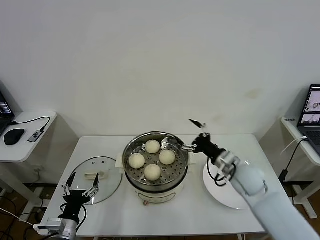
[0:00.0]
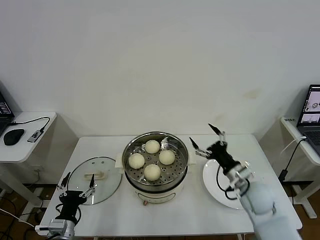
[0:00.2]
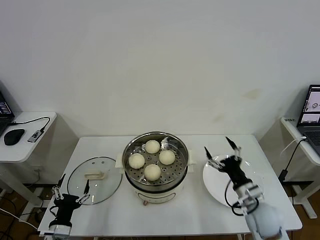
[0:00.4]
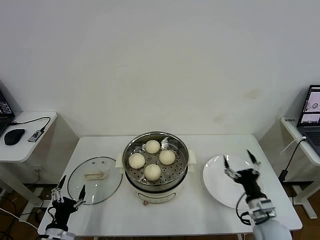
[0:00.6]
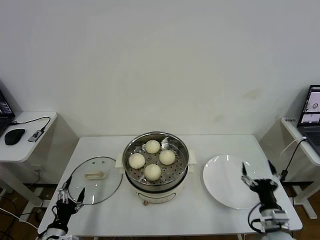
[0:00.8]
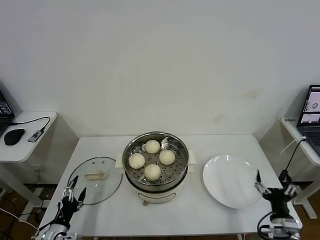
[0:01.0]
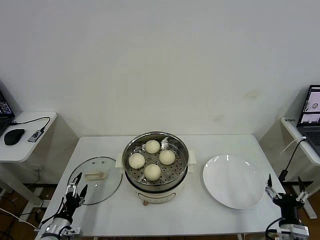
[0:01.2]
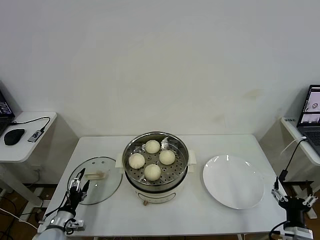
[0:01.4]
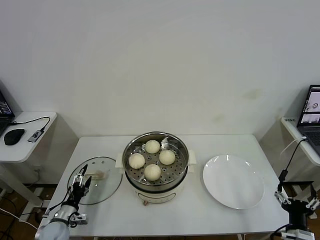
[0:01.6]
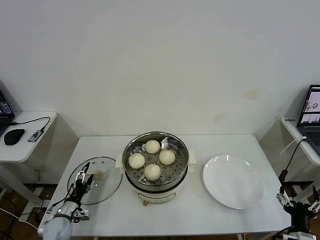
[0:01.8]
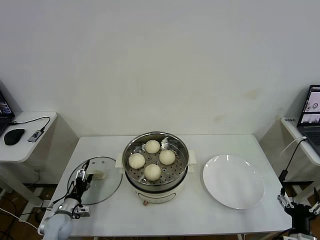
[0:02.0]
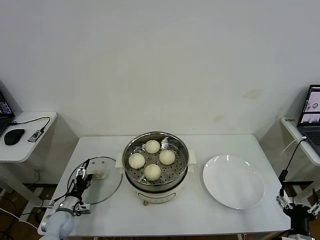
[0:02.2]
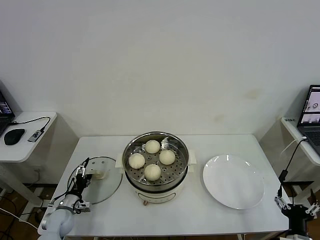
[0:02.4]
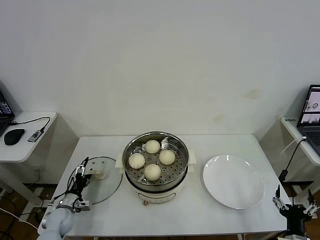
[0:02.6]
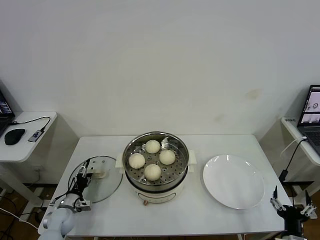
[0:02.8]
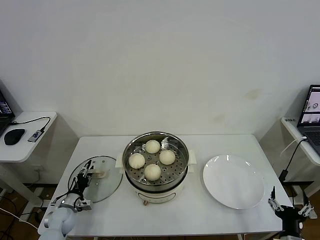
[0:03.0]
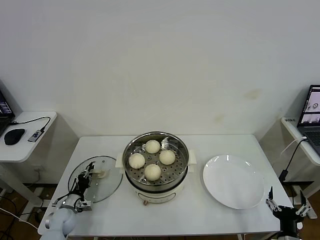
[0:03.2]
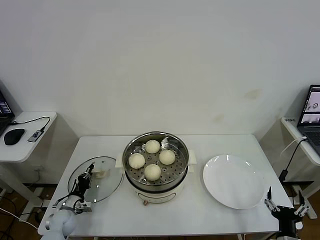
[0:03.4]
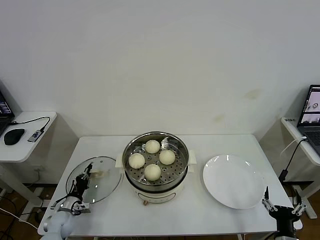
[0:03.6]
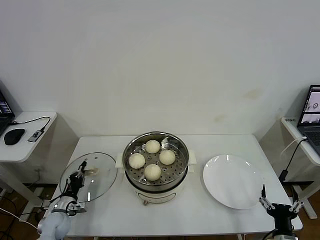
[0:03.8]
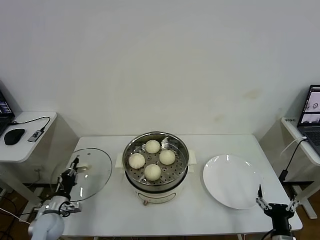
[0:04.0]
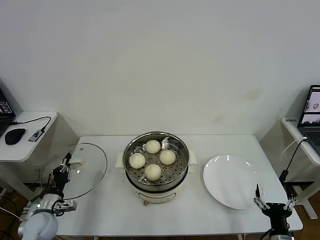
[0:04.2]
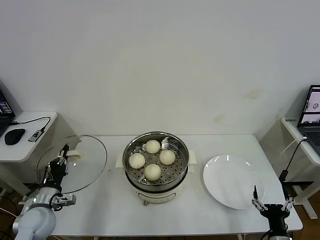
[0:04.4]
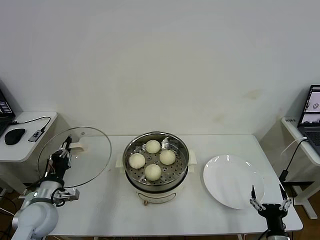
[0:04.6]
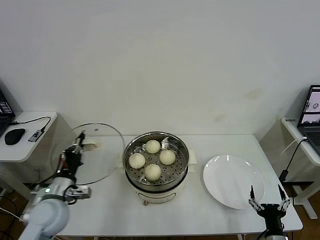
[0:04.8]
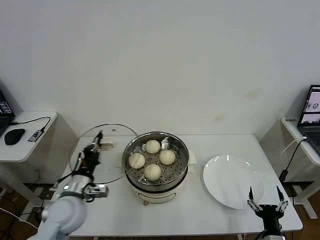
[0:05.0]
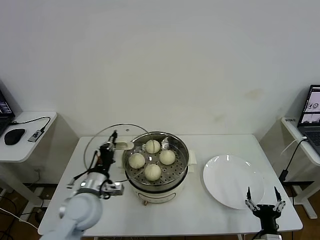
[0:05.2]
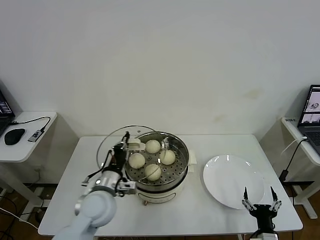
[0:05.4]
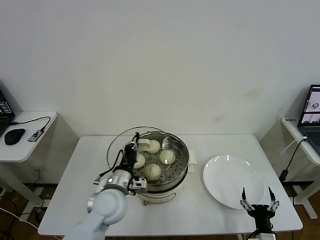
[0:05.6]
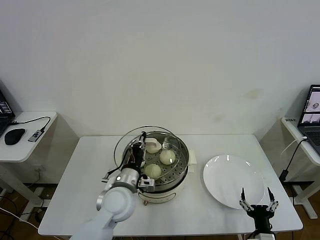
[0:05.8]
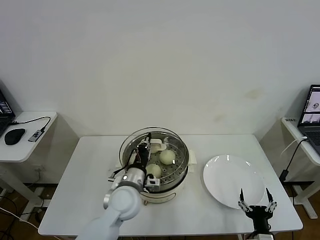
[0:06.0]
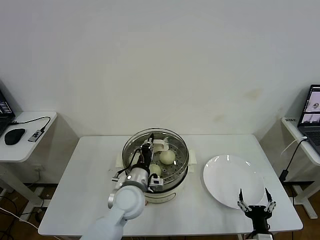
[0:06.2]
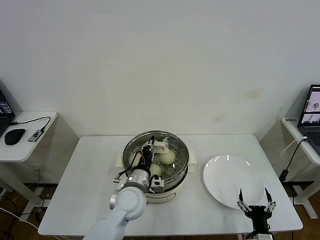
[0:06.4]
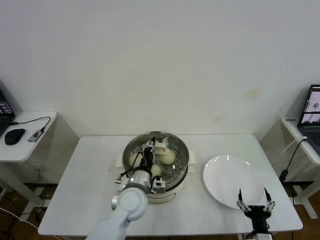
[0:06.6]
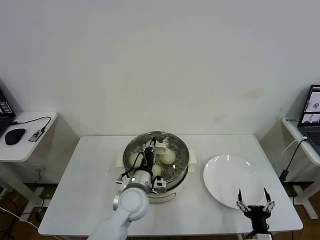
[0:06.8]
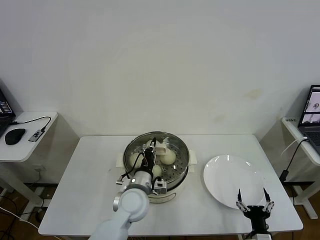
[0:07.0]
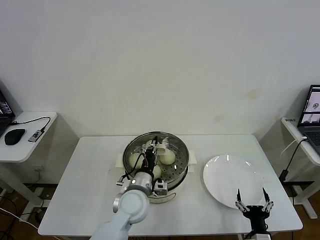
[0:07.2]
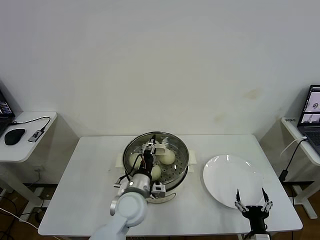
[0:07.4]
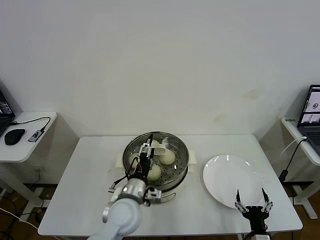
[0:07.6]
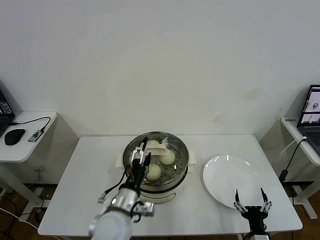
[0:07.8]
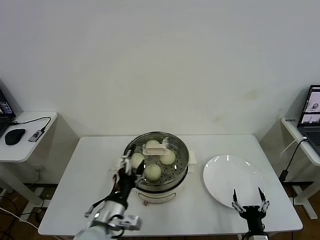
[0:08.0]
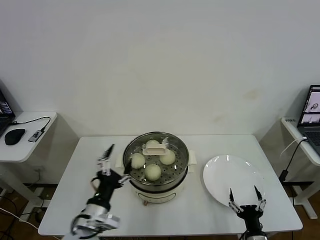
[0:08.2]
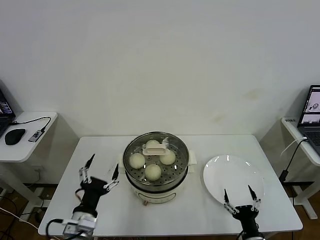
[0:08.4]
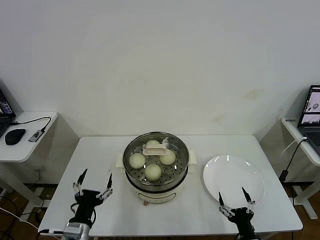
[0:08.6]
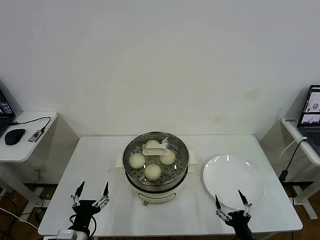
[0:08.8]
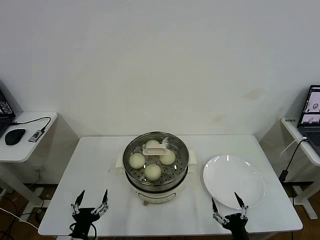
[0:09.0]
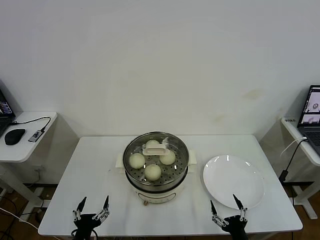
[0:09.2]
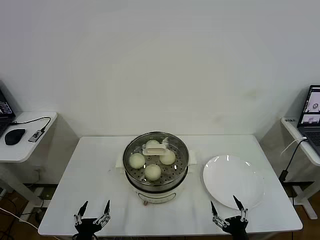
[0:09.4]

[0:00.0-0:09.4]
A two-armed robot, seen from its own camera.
Task of the whole recording: take steamed baozi put them in steamer then cover it.
Step, 0:00.0 to 0:03.6: Grasp the pot lid with left gripper.
Step, 0:03.8 to 0:07.8: Place the pot lid on the steamer with left gripper.
0:00.0 to 0:01.6: The right gripper travels backward, to the right and downward by some 30 cm. Meanwhile the left gripper is displaced downward, to the left and forward by approximately 15 cm.
0:01.6 to 0:03.2: The left gripper goes approximately 5 cm forward, and closes its fingers.
0:03.2 to 0:04.8: The left gripper heads upward, covering some 20 cm, and closes up.
0:04.8 to 0:06.2: The left gripper moves to the right, approximately 20 cm.
0:06.2 to 0:07.8: The left gripper heads backward, covering some 5 cm, and opens.
0:07.8 to 0:09.4: The left gripper goes approximately 25 cm to the left, backward and downward.

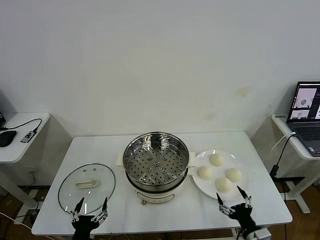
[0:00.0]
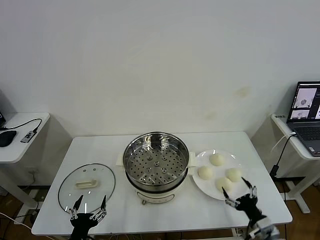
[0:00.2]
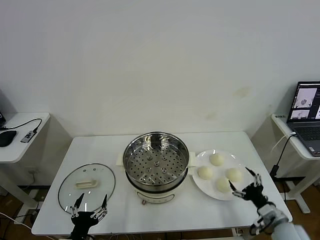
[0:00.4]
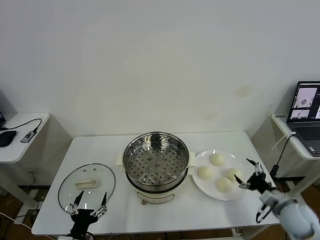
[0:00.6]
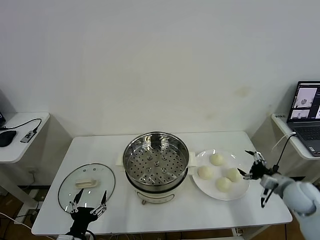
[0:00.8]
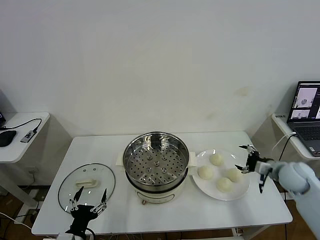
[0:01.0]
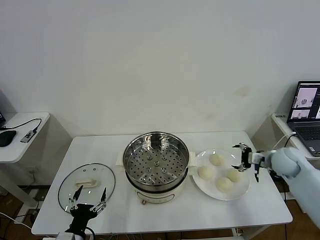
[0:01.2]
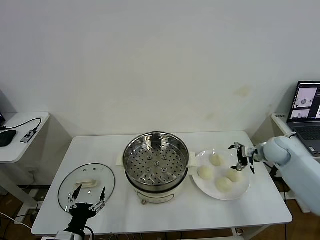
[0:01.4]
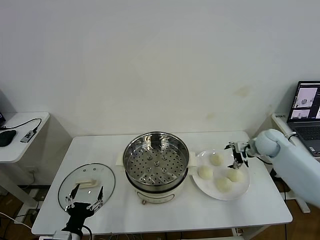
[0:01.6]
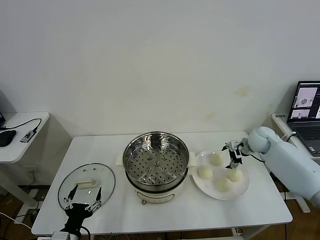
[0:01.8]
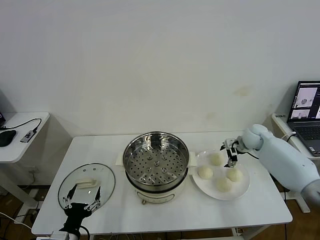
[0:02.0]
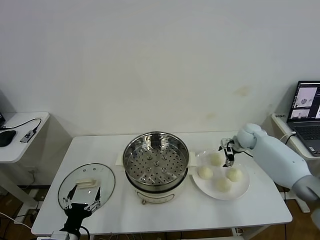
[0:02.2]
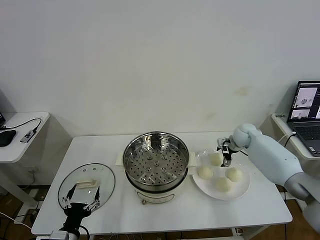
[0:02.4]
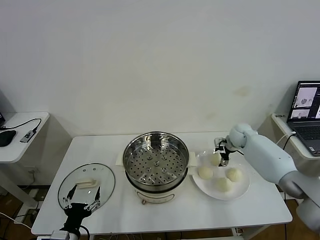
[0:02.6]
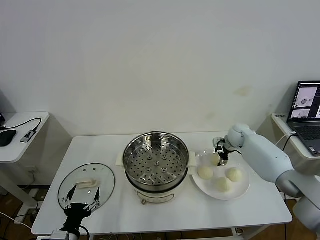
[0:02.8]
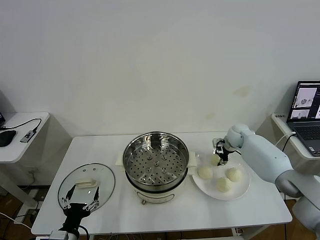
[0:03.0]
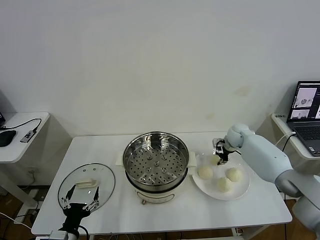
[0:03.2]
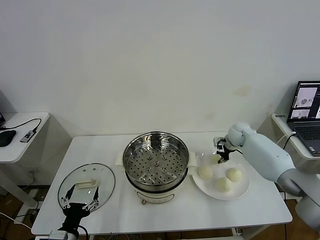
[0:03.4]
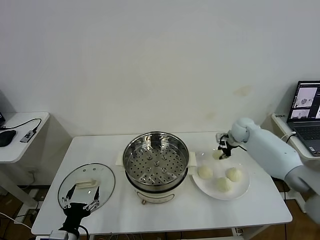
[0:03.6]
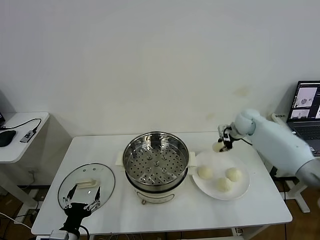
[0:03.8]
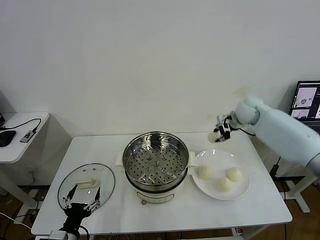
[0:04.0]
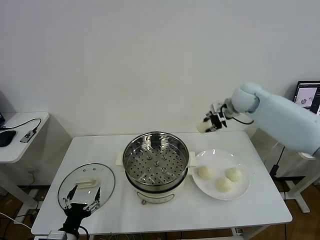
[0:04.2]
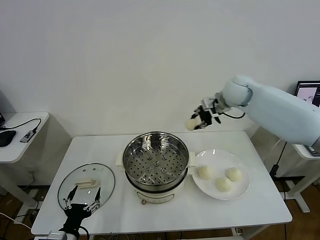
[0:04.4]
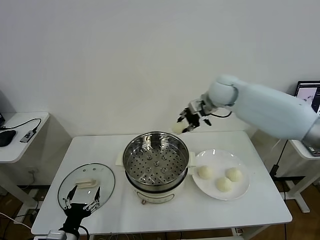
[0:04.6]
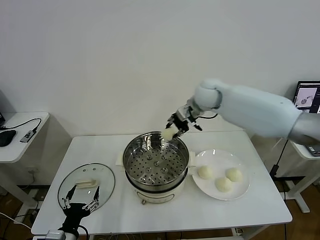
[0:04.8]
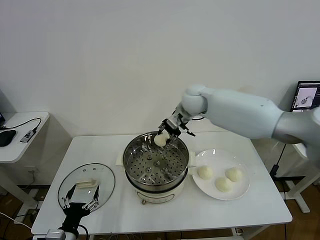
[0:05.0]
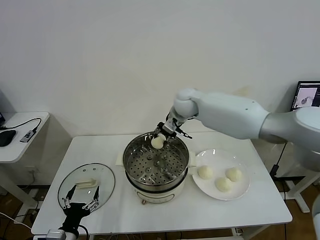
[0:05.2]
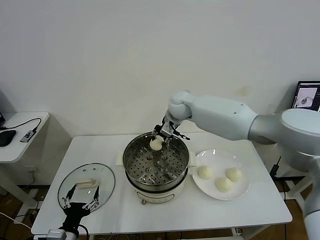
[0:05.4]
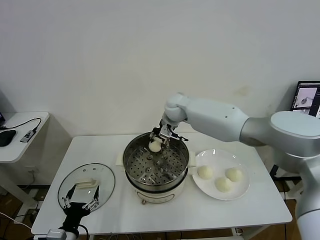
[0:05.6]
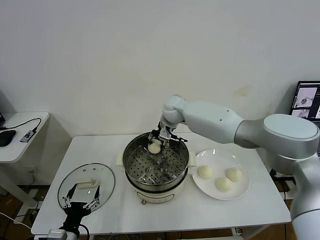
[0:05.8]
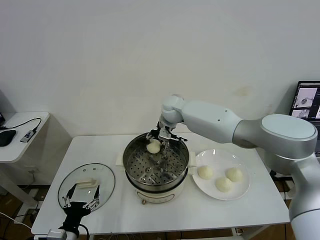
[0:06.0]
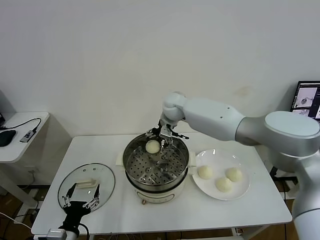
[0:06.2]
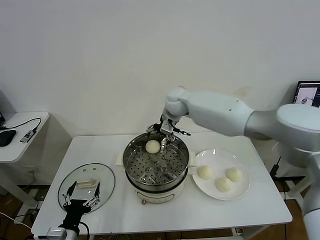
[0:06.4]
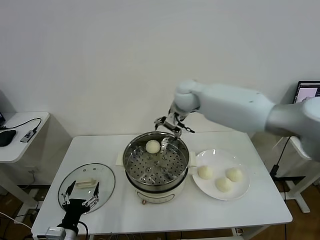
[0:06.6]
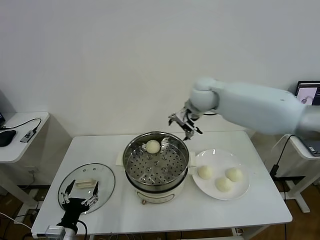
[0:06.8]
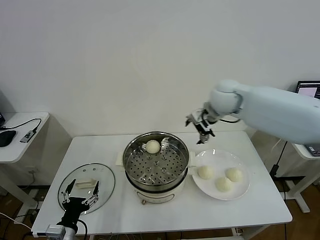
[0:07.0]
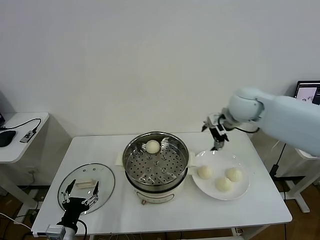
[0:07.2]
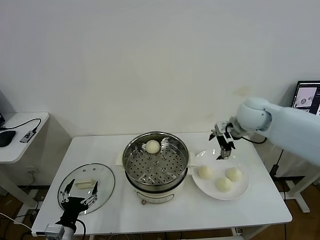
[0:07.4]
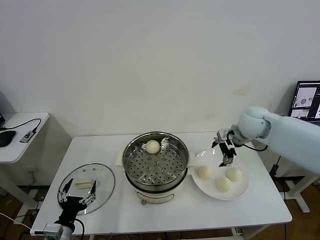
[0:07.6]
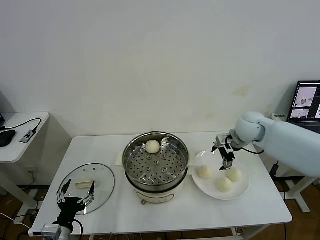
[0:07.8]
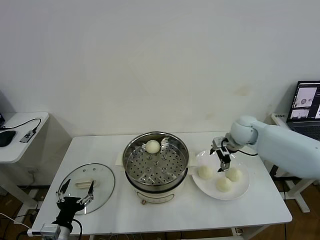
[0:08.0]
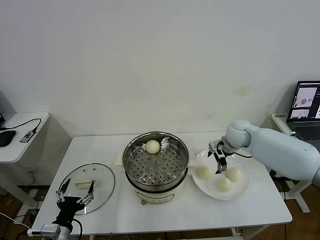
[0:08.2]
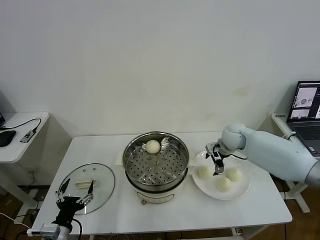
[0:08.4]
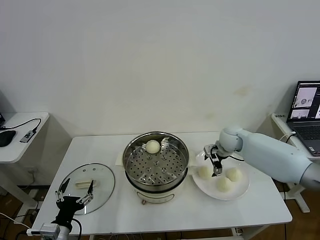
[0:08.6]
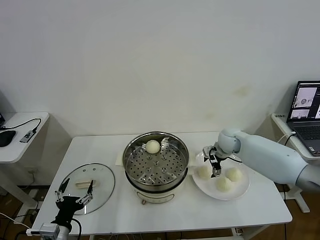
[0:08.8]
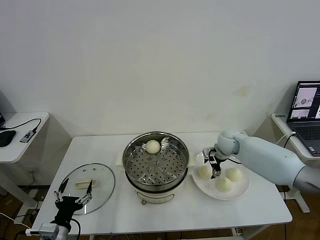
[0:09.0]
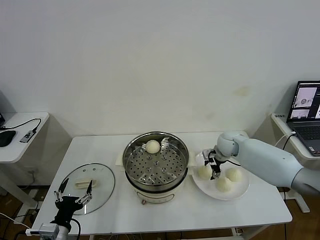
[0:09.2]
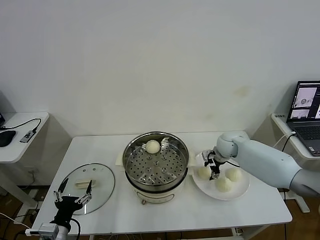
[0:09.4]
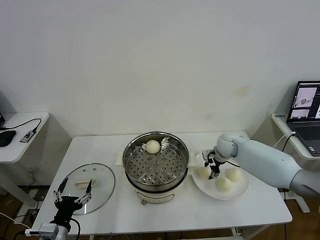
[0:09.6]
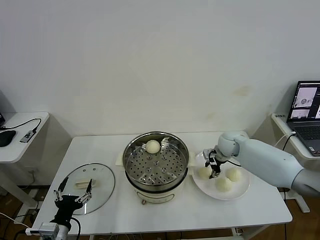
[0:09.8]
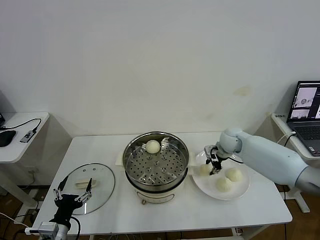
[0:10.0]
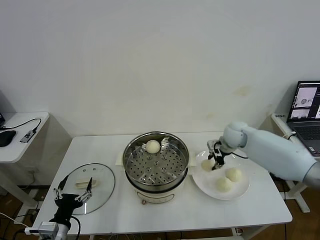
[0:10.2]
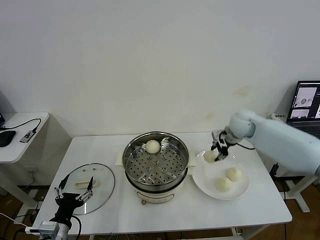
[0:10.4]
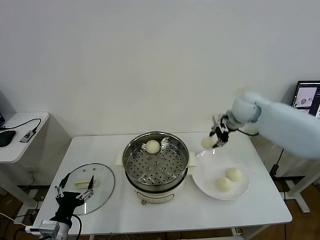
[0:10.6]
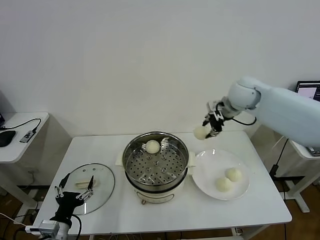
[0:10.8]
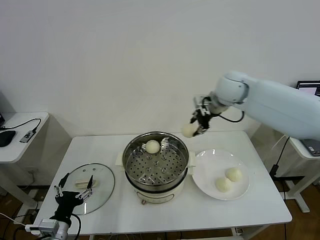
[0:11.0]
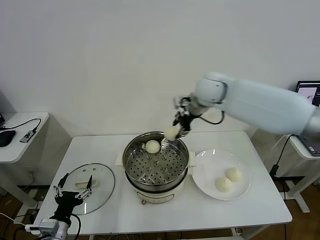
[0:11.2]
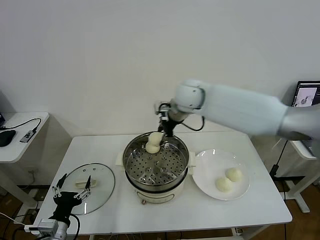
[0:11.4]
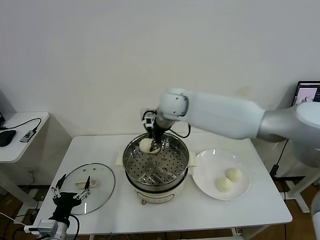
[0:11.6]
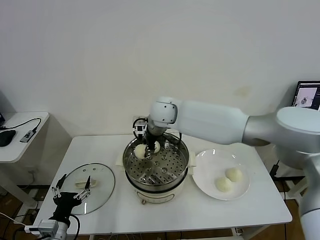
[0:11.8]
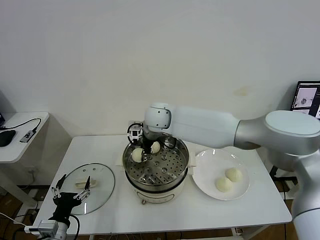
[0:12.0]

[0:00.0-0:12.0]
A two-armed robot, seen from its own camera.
Task of the whole recording: take steamed baozi put them in steamer then cover it.
Step, 0:00.0 to 0:03.2: Grasp the baozi in the plate with right gripper.
Step, 0:03.6 to 0:06.2: Place the baozi on the steamer with right gripper.
Step, 0:06.6 to 0:10.0: Grasp the baozi in the plate with right gripper.
0:01.6 to 0:03.0: The right gripper shifts some 10 cm forward and to the left, and closes.
0:03.0 to 0:04.4: The right gripper moves upward and to the left, roughly 25 cm.
0:04.4 to 0:06.0: The right gripper shifts about 20 cm to the left and downward, and opens up.
0:06.0 to 0:07.6: The right gripper goes approximately 25 cm to the right.
0:07.6 to 0:09.0: The right gripper heads downward, covering about 10 cm.
0:09.0 to 0:10.4: The right gripper goes about 15 cm upward, and closes.
0:10.4 to 0:12.0: The right gripper is displaced to the left by some 30 cm.
